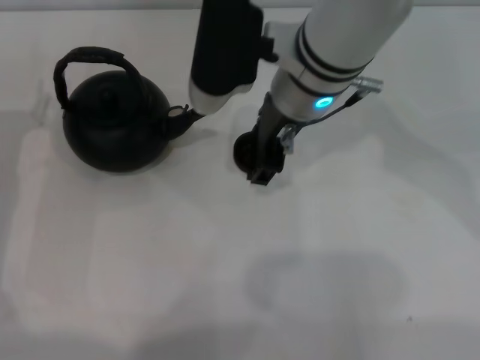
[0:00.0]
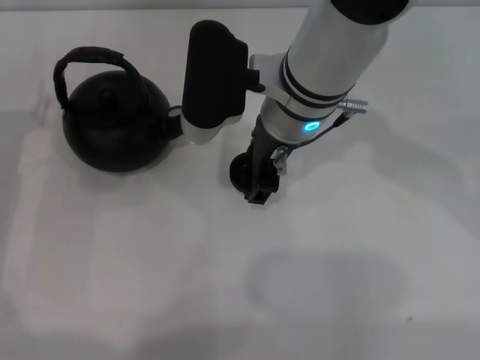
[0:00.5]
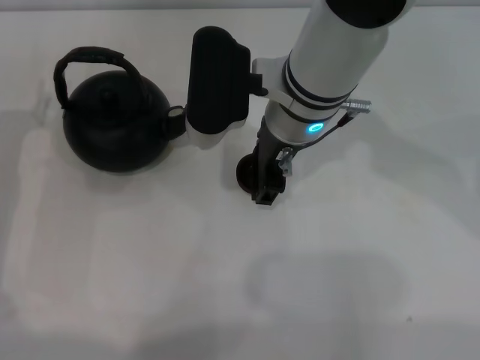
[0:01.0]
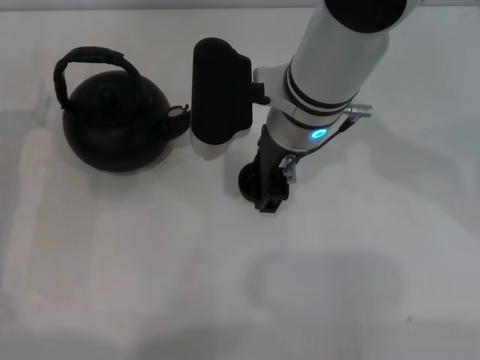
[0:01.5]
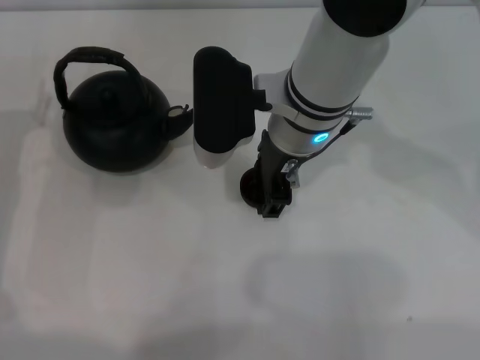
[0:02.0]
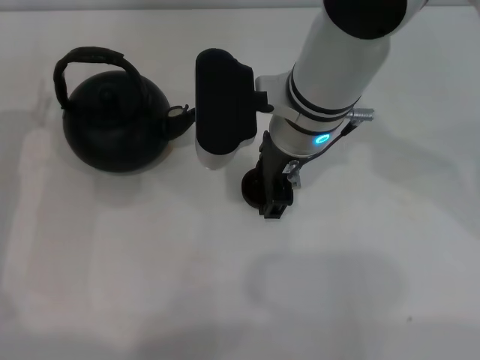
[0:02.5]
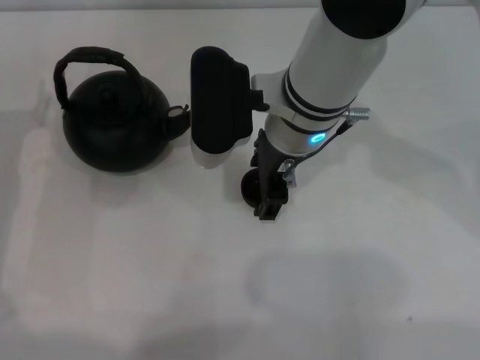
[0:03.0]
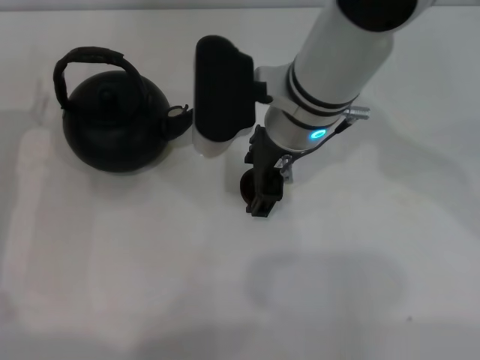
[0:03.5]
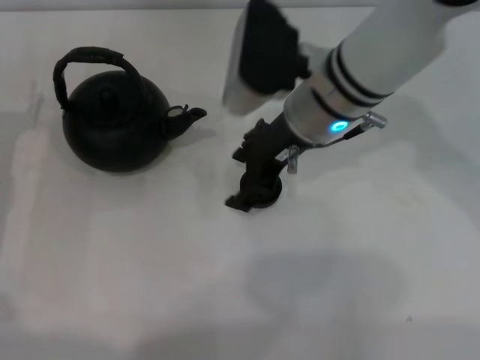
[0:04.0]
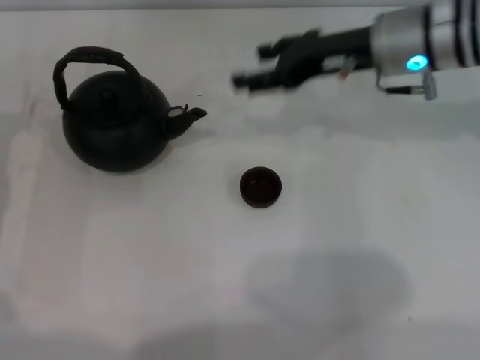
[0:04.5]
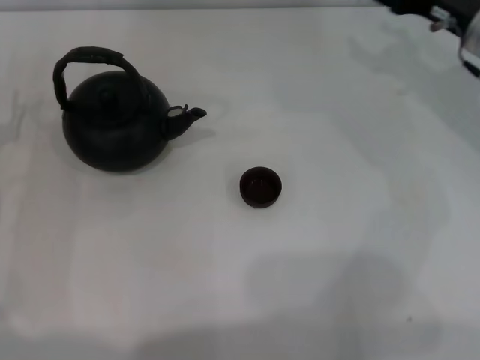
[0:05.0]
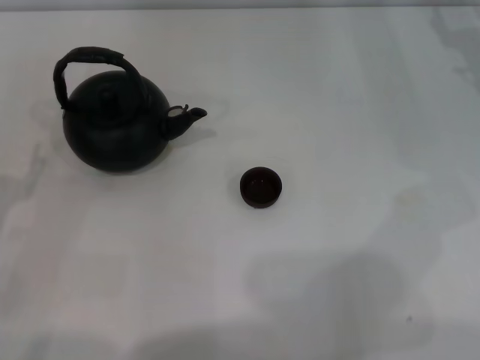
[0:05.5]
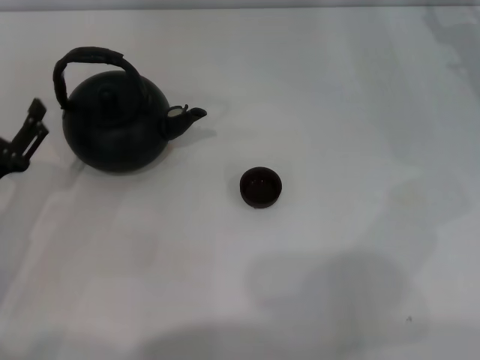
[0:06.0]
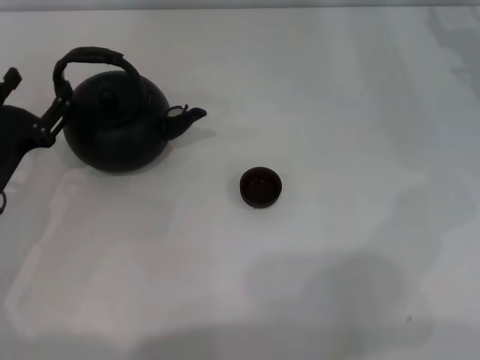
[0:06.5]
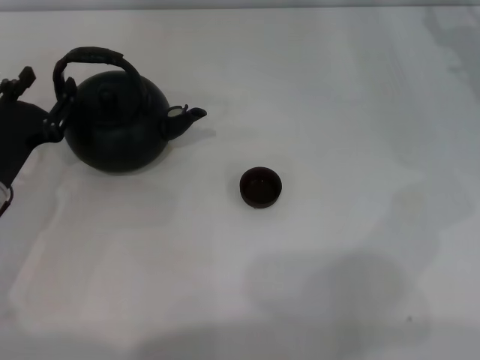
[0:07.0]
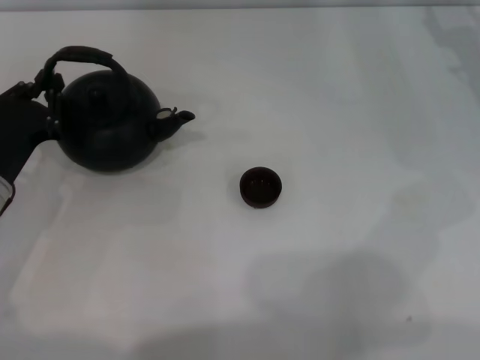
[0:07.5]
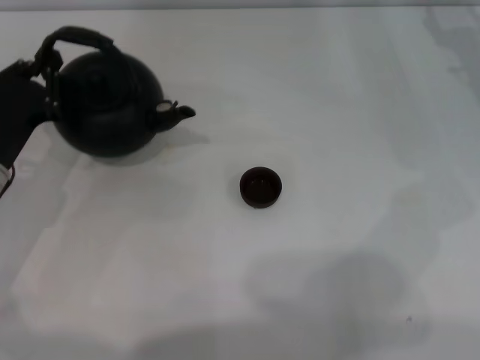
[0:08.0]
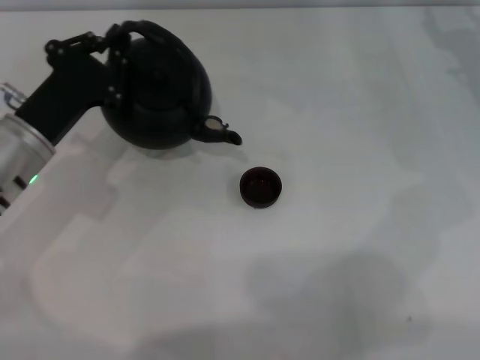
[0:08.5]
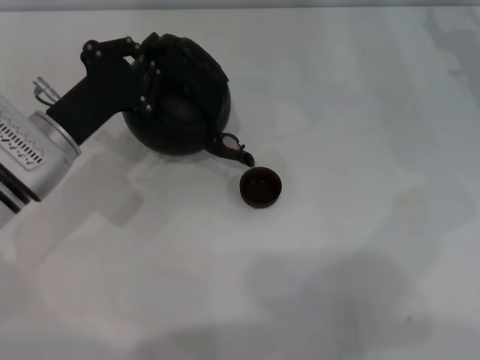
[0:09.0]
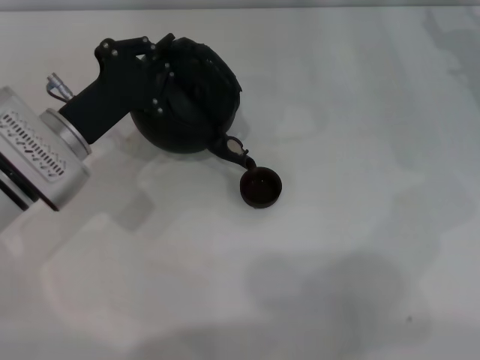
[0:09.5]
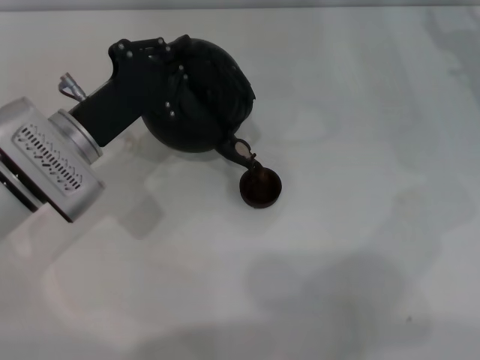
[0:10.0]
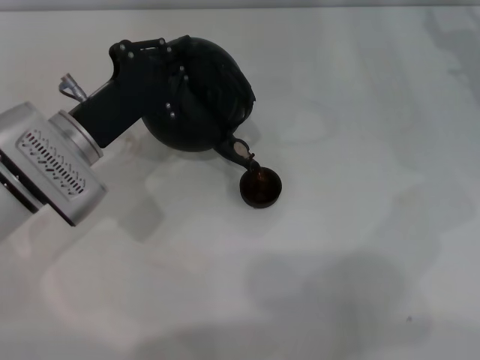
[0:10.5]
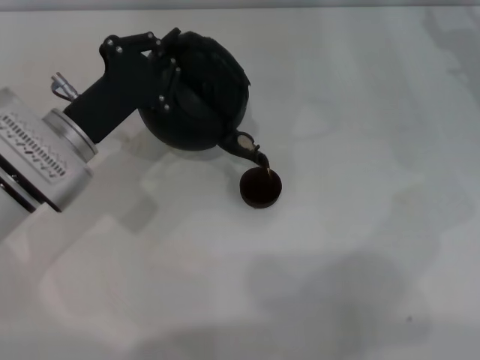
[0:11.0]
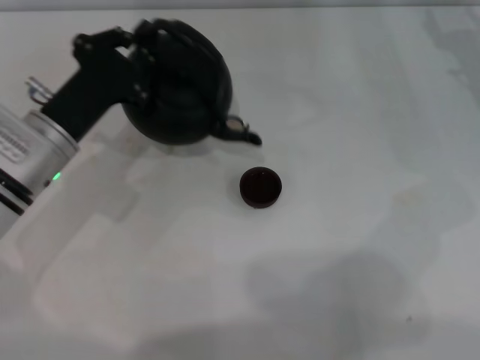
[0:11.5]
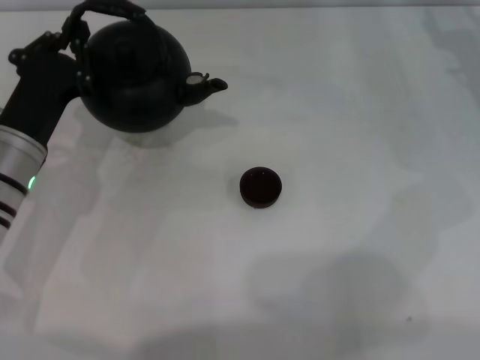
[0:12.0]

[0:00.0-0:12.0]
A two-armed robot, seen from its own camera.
Task of the whole recording: Grasp the handle of the teapot with one hand and pour tea into the teacup.
Step, 0:00.0 to 0:04.0: Place the teacup in the center of view with the right gripper.
Step, 0:04.5 to 0:08.0: Pick up the teapot with the left gripper.
Step, 0:08.5 to 0:11.0: Pour tea into the teacup with the left gripper.
0:00.0 to 0:02.0: The grippers make only small movements.
0:02.0 to 0:04.0: The right gripper opens.
0:04.0 to 0:06.0: The right gripper is displaced to the right by roughly 25 cm; the left gripper goes approximately 5 cm backward.
0:06.0 to 0:08.0: The left gripper moves forward, approximately 5 cm, and closes up.
0:08.0 to 0:10.0: The left gripper goes some 10 cm to the right.

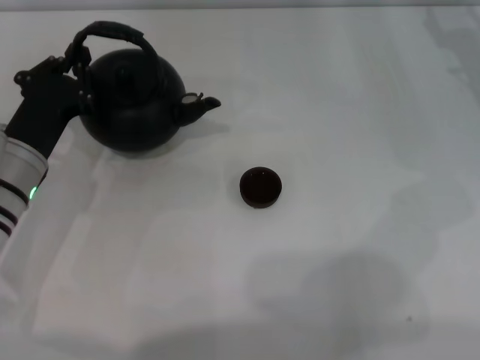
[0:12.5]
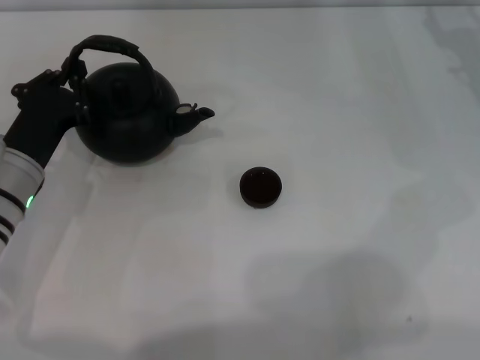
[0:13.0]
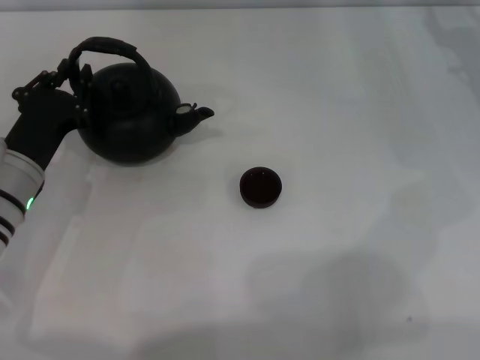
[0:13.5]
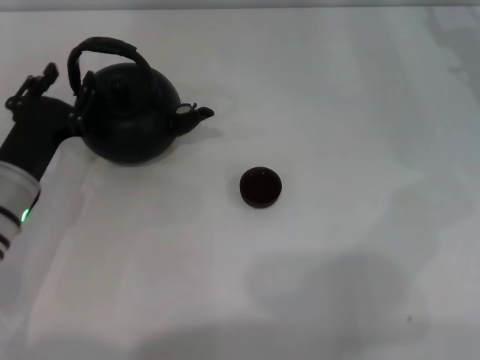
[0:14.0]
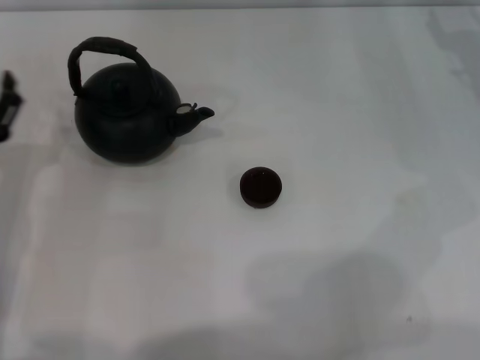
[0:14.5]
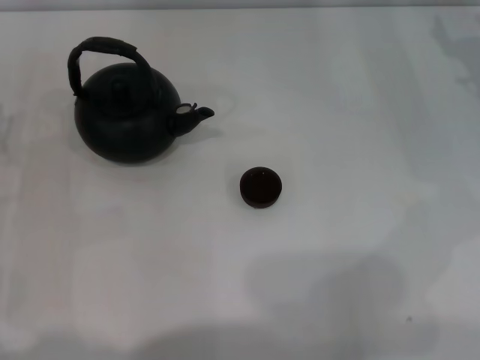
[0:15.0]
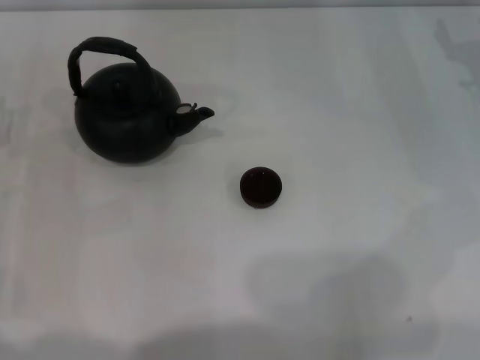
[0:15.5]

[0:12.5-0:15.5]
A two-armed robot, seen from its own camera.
Task of the whole recording: Grasp the handle of the teapot with one hand and pour tea into the teacup.
Step, 0:12.5 to 0:14.0: Put down the teapot with the left gripper.
0:12.5 to 0:14.0: The left gripper opens its fingers.
0:14.0 to 0:15.5: The left gripper goes some 5 cm to the left, and opens.

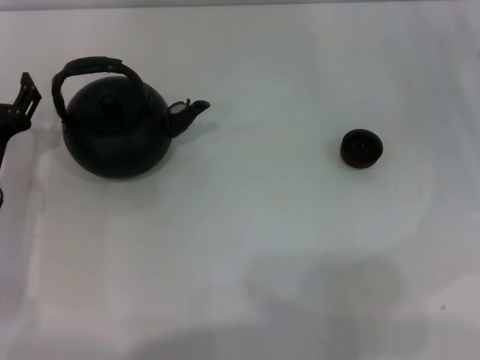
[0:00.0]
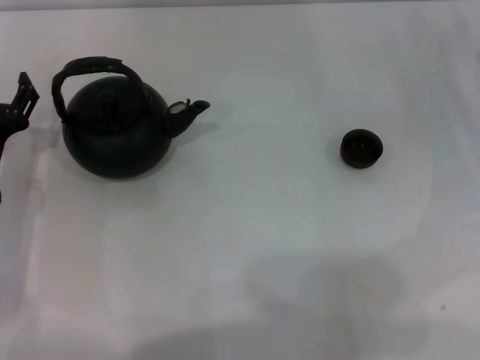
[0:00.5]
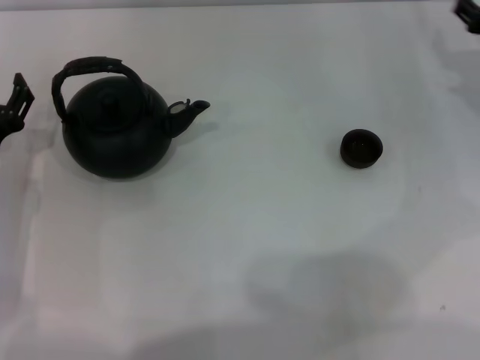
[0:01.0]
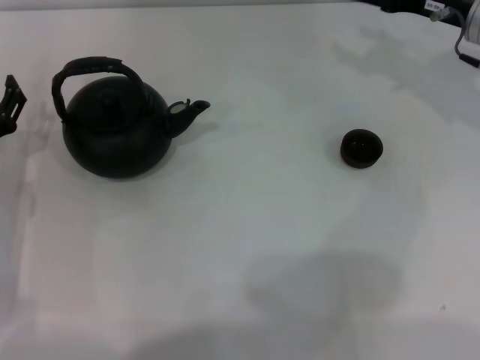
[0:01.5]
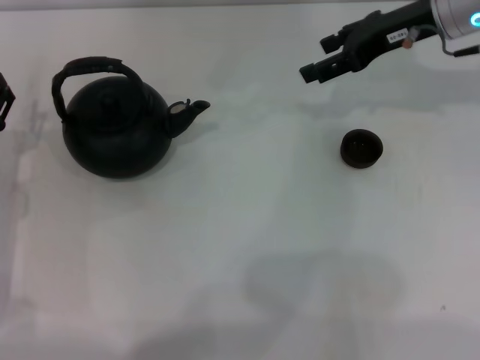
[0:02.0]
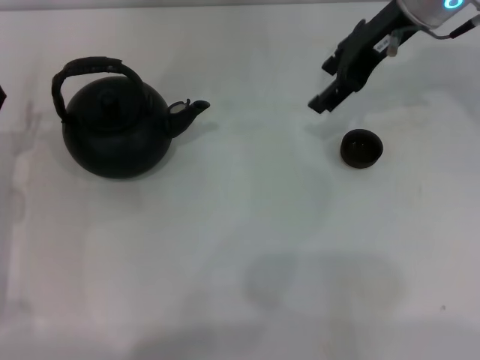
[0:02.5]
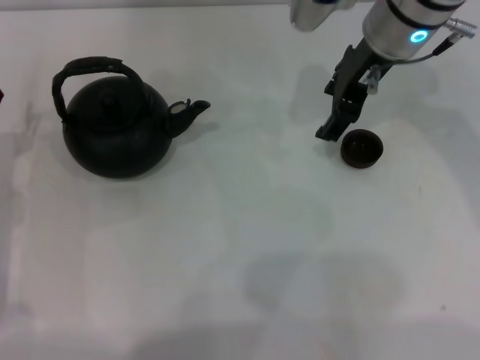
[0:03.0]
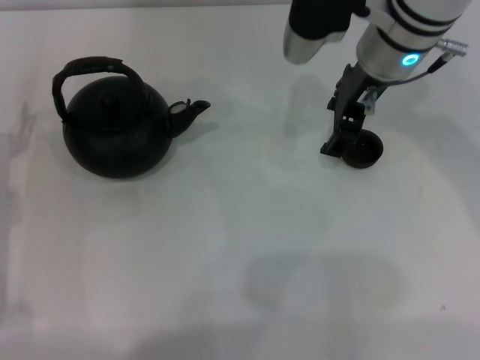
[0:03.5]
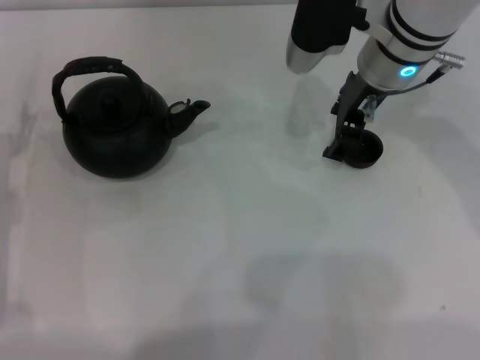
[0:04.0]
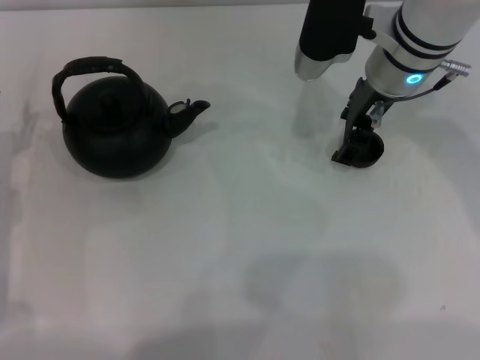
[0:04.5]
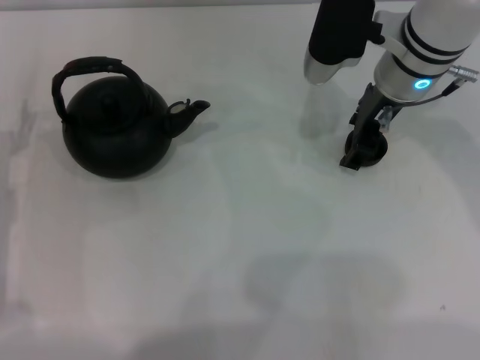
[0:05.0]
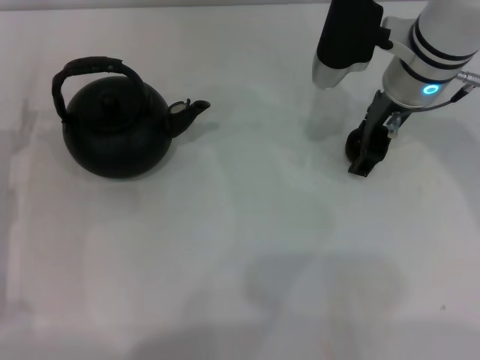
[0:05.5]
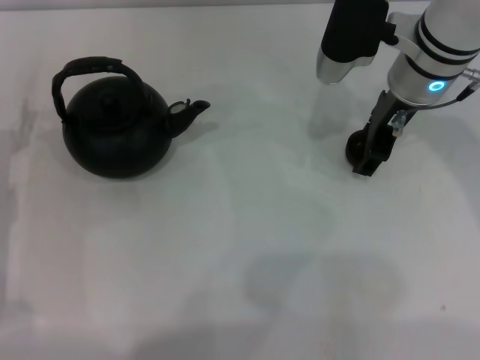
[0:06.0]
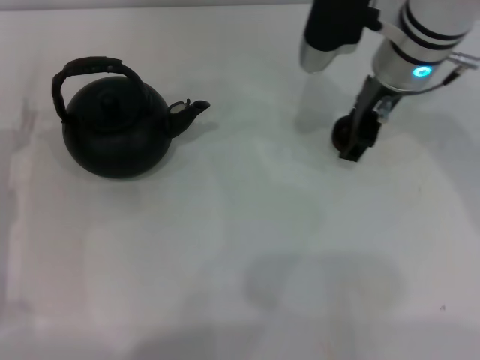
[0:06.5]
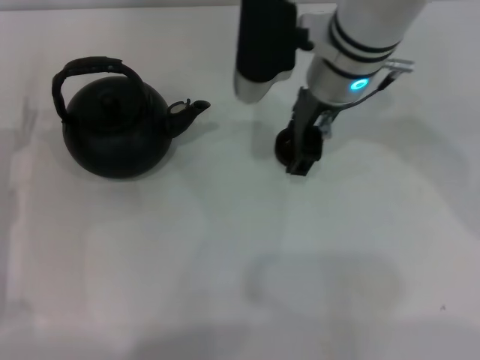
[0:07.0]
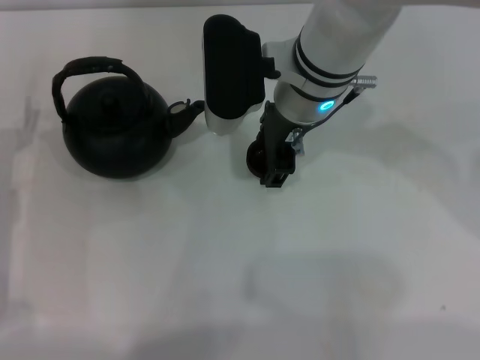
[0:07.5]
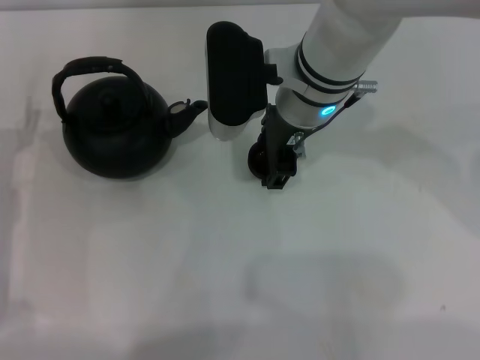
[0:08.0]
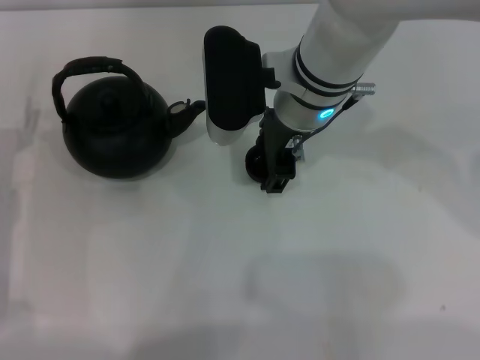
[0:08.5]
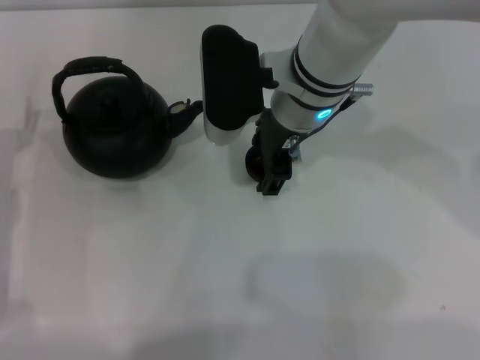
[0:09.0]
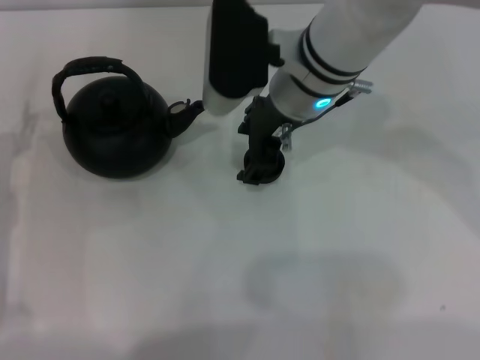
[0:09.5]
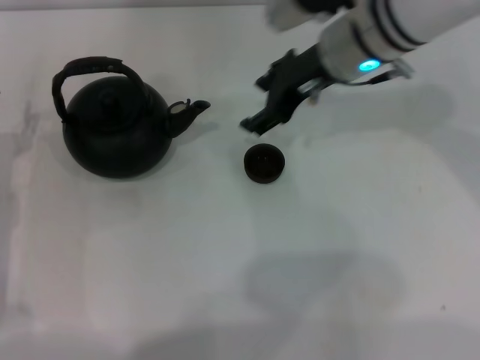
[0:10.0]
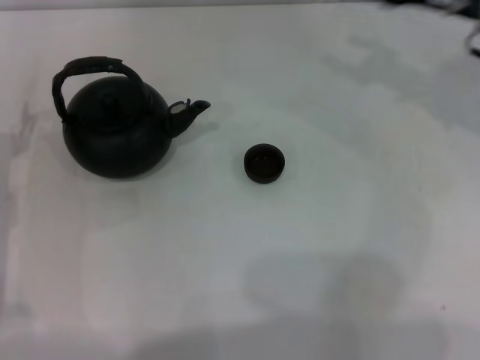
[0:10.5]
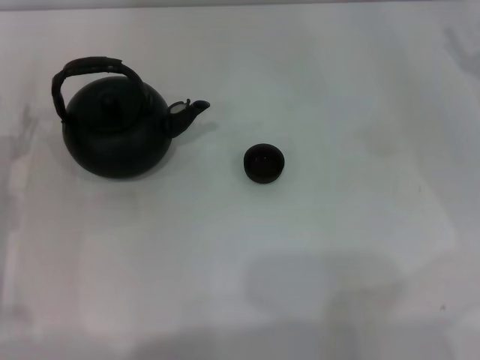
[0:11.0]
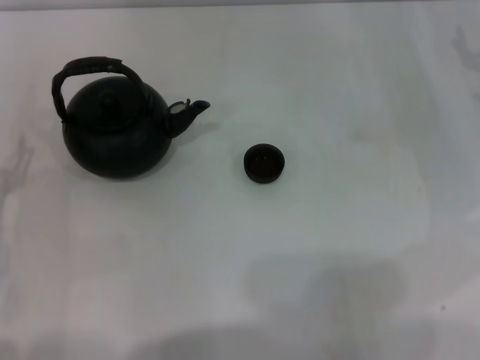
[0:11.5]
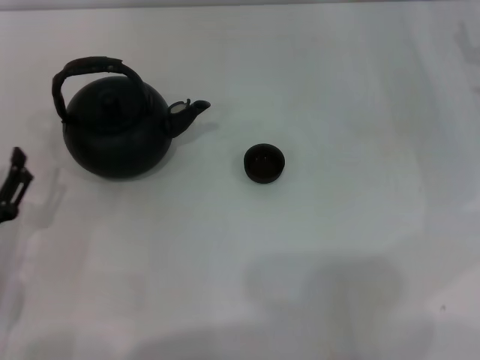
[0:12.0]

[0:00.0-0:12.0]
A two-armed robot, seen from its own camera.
Task of the whole recording: Grasp the handle of the teapot with one hand and pour tea into the teacup.
Step, 0:00.0 to 0:06.0: Pick up the teacup with the right gripper.
Step, 0:06.5 to 0:10.0: Place the teacup in the center of view with the right gripper.
0:00.0 to 0:02.0: The right gripper moves to the left, upward and forward, about 20 cm.
0:02.0 to 0:04.0: The right gripper goes roughly 10 cm to the left.
0:04.0 to 0:06.0: The grippers make only small movements.
0:06.0 to 0:08.0: The right gripper heads to the left, covering some 10 cm.
0:08.0 to 0:10.0: The right gripper travels to the right by roughly 5 cm.
0:10.0 to 0:12.0: The right gripper is displaced to the right by roughly 20 cm. Meanwhile the left gripper shifts some 10 cm backward.
